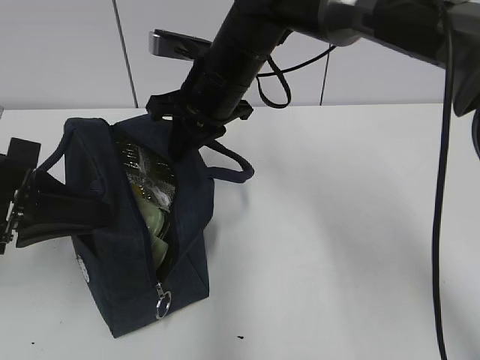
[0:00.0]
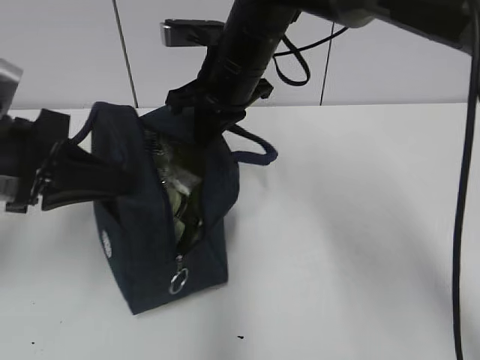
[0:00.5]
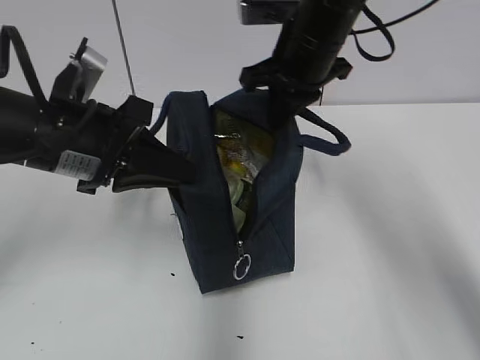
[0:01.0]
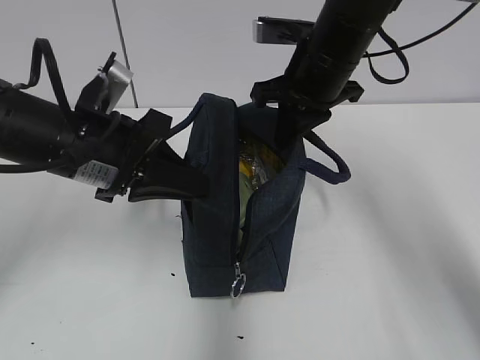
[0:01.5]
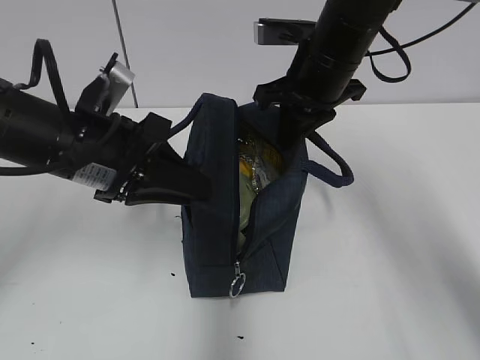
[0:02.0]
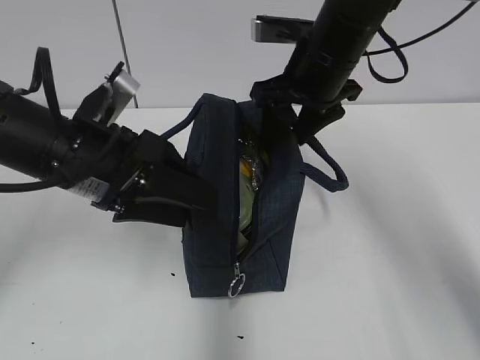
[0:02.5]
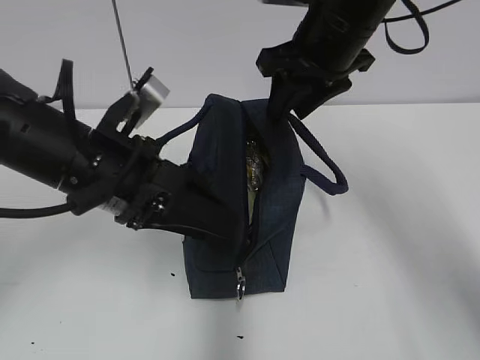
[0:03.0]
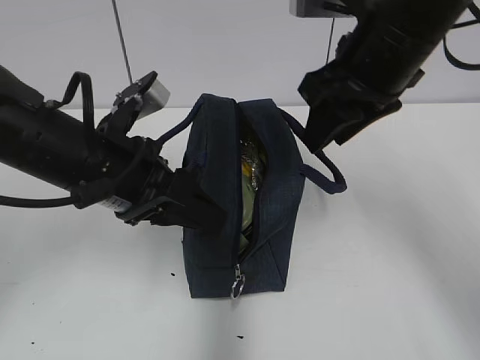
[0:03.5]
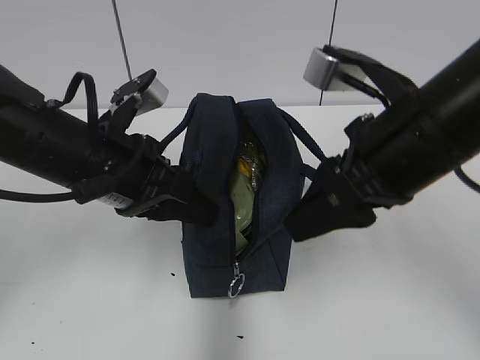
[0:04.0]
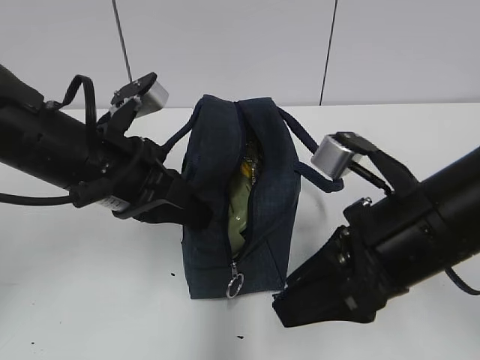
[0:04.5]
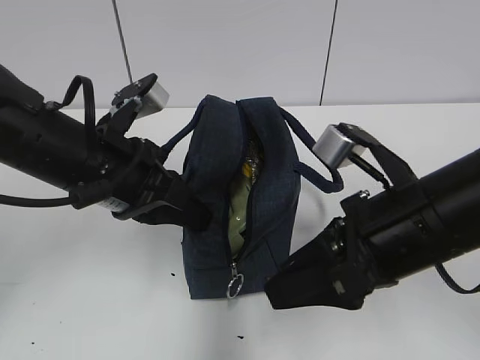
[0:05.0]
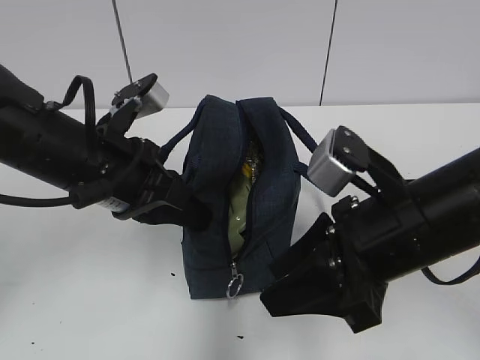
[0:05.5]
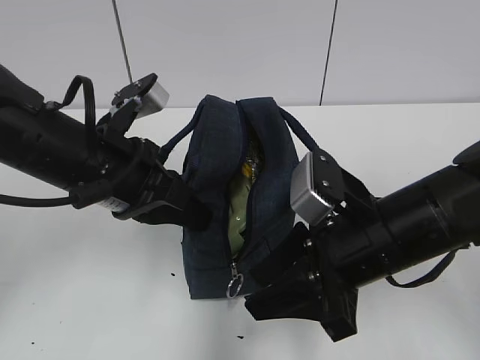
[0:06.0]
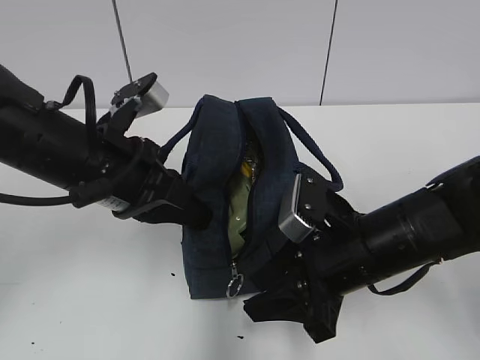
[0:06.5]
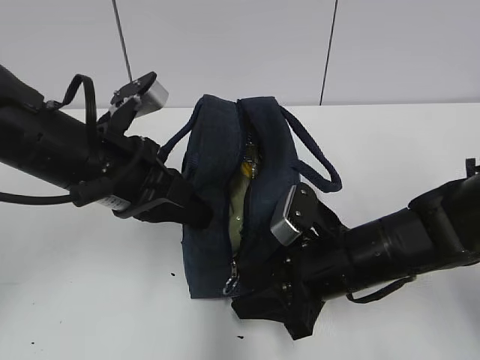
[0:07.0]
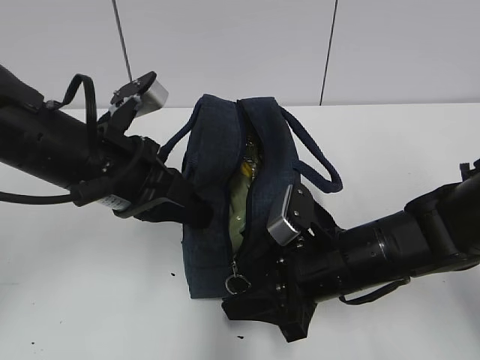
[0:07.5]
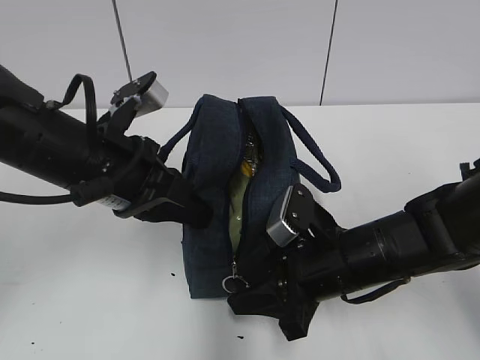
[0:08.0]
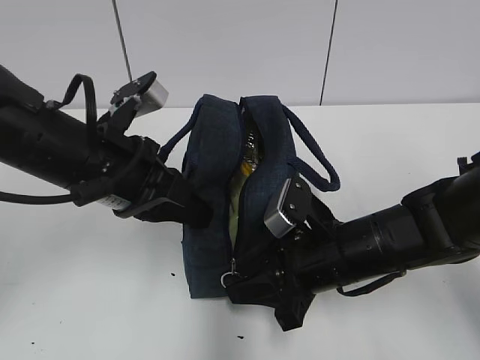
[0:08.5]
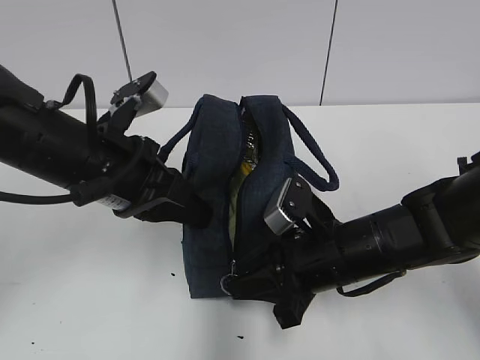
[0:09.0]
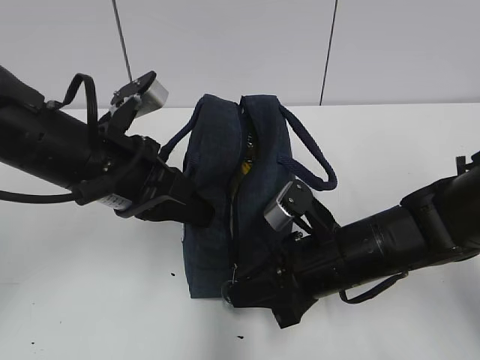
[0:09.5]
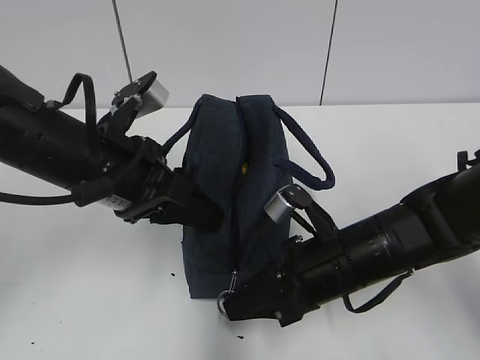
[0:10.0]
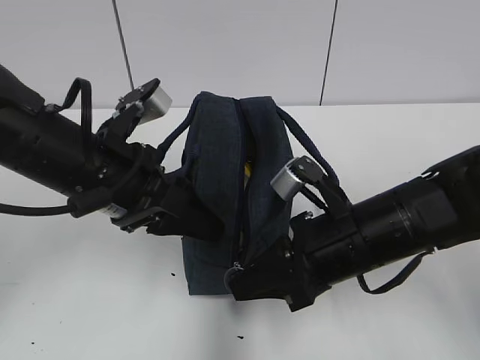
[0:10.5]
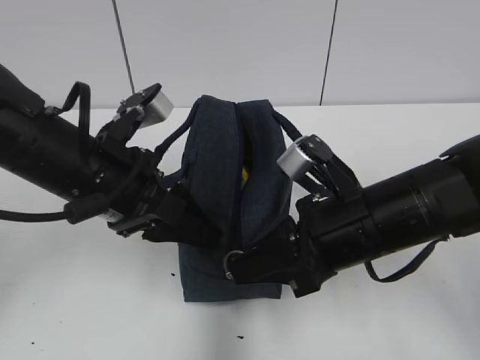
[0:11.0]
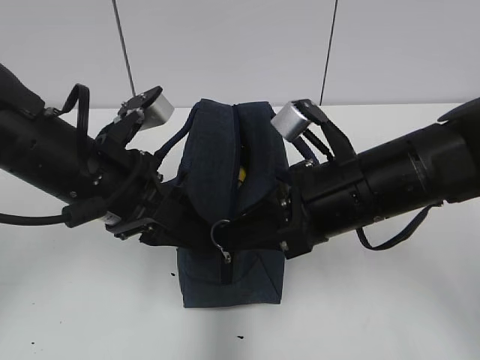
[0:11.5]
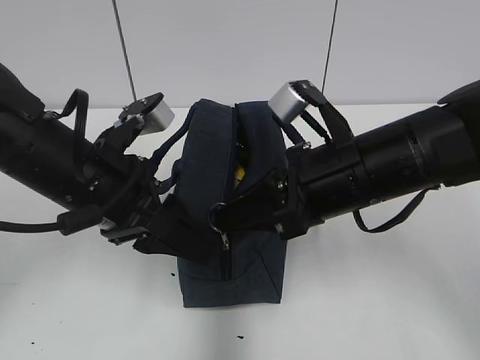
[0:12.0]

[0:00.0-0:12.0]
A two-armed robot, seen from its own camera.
0:00.0 to 0:02.0: The left gripper goes approximately 10 cm to the right and forward, while the right gripper travels to the right by some 10 cm.
0:02.0 to 0:04.0: The right gripper heads backward, covering approximately 15 cm, and opens its fingers, while the left gripper opens, then closes once more.
0:04.0 to 0:06.0: The left gripper closes up. Meanwhile the right gripper heads downward, covering some 10 cm.
0:06.0 to 0:08.0: The right gripper is displaced downward by approximately 5 cm.
0:08.0 to 0:10.0: The left gripper opens its fingers; the right gripper closes its fingers.
0:10.0 to 0:12.0: The right gripper shifts roughly 10 cm upward.

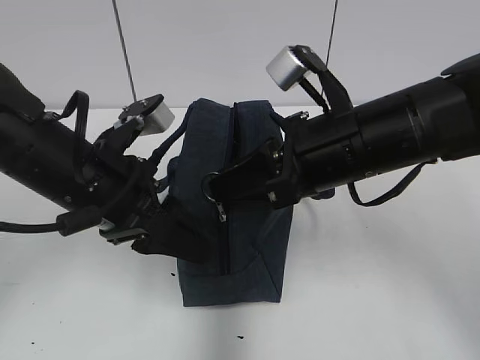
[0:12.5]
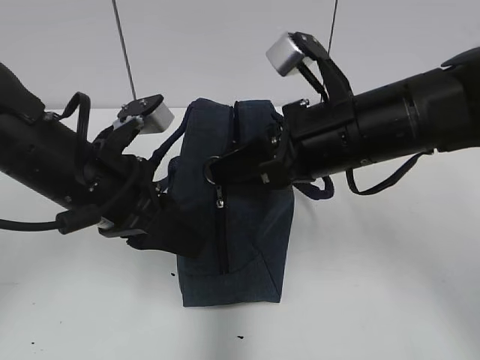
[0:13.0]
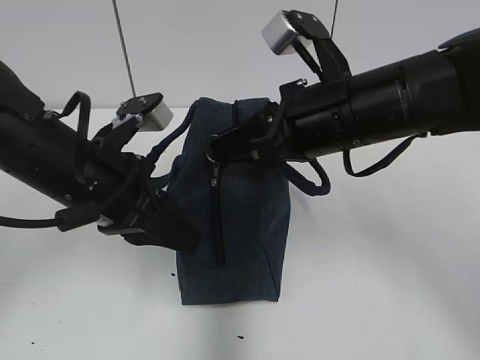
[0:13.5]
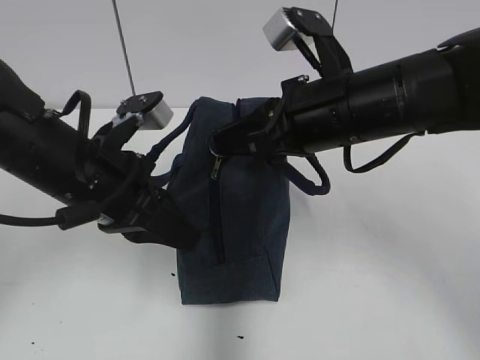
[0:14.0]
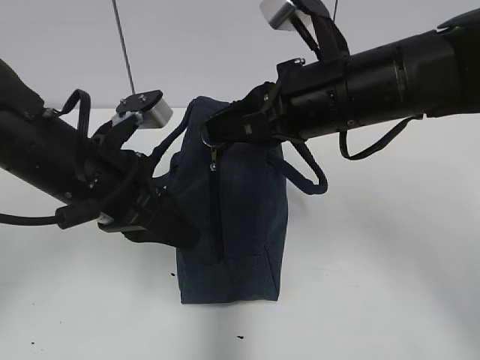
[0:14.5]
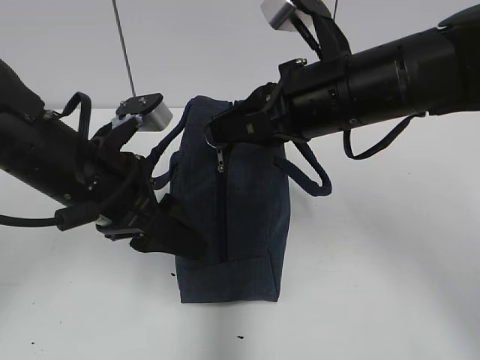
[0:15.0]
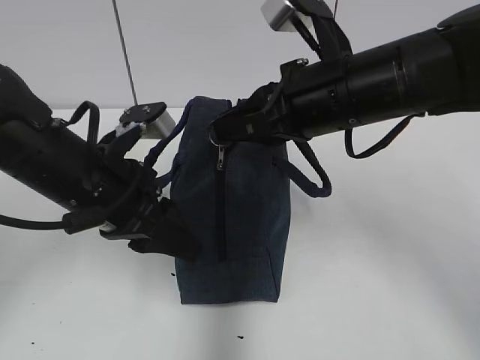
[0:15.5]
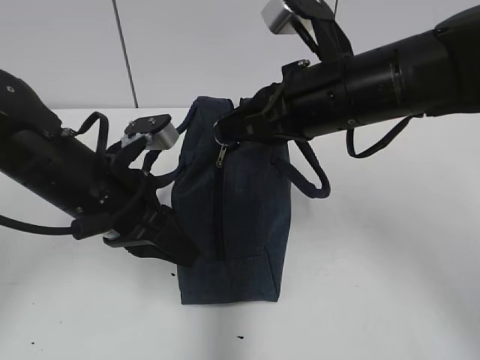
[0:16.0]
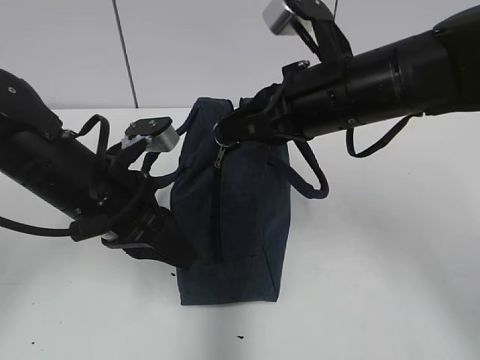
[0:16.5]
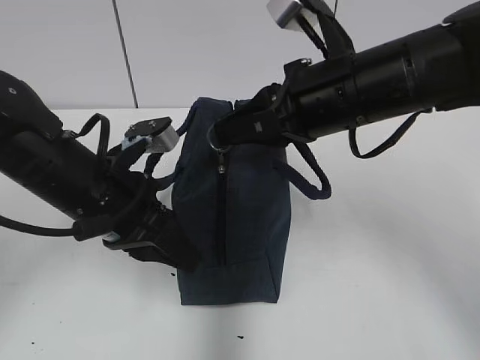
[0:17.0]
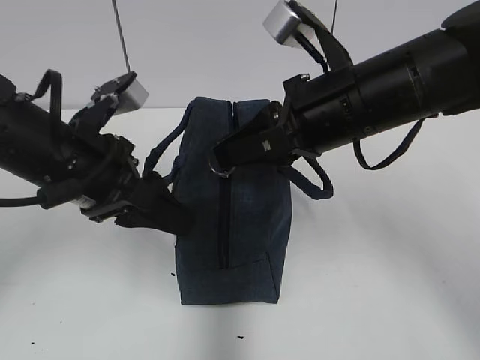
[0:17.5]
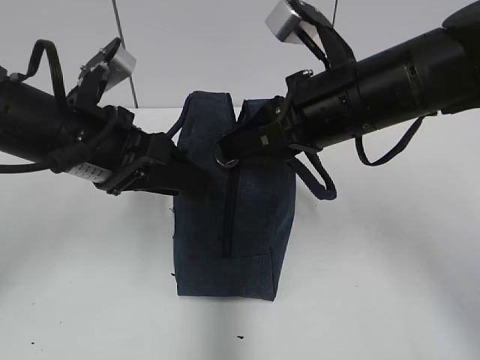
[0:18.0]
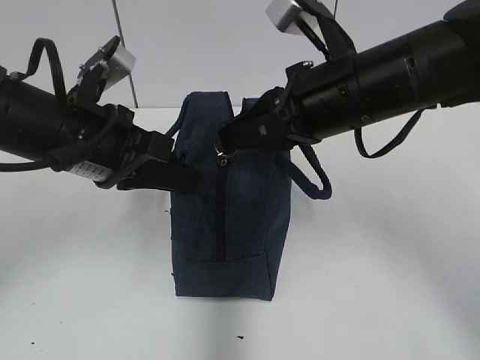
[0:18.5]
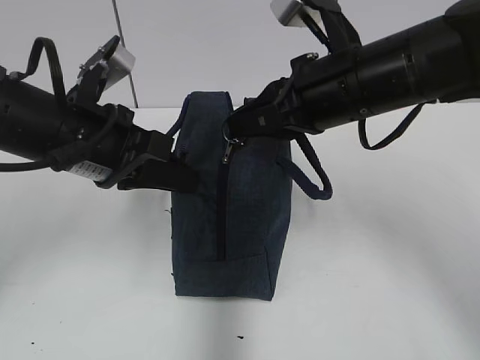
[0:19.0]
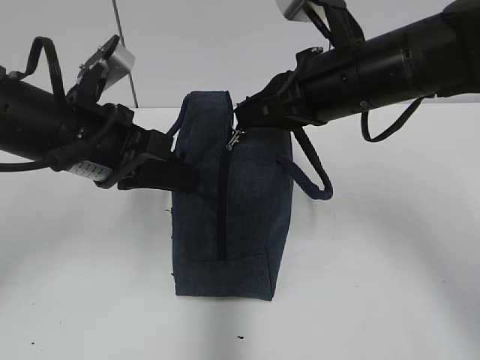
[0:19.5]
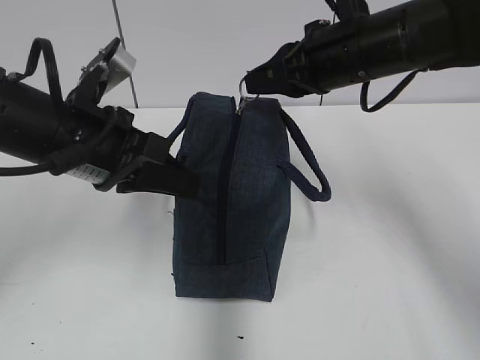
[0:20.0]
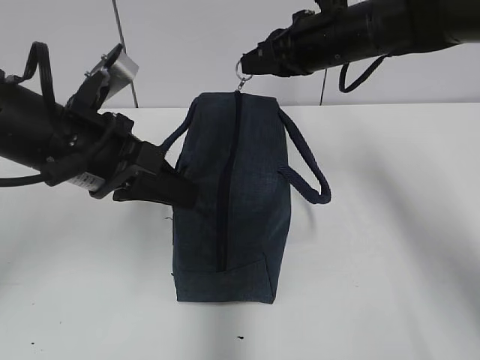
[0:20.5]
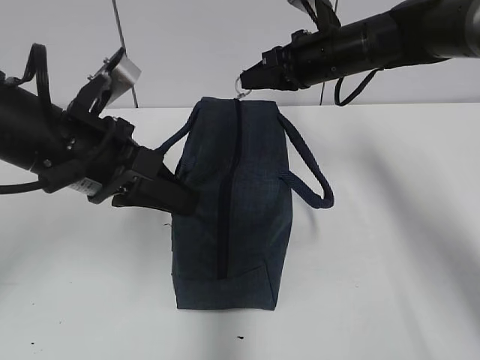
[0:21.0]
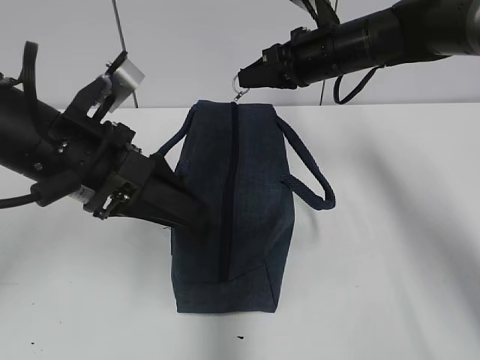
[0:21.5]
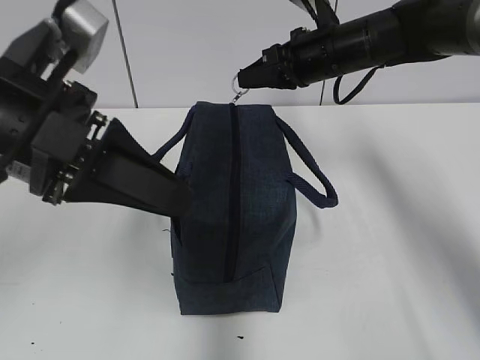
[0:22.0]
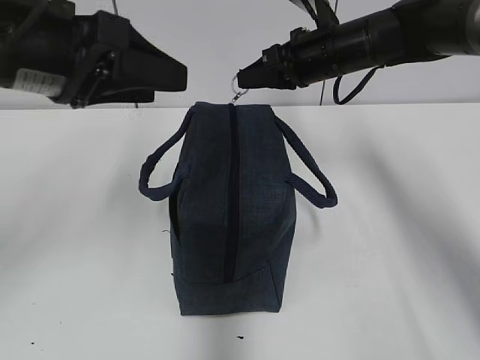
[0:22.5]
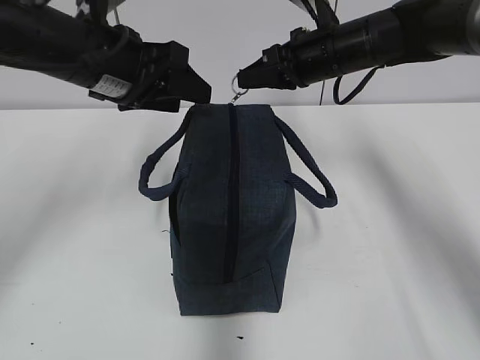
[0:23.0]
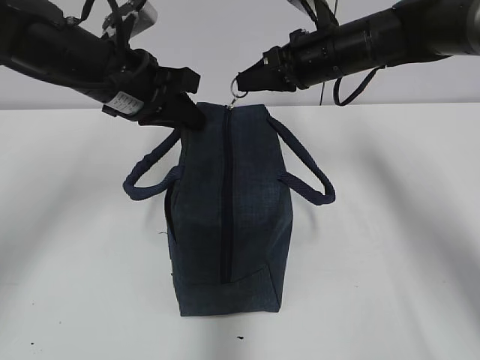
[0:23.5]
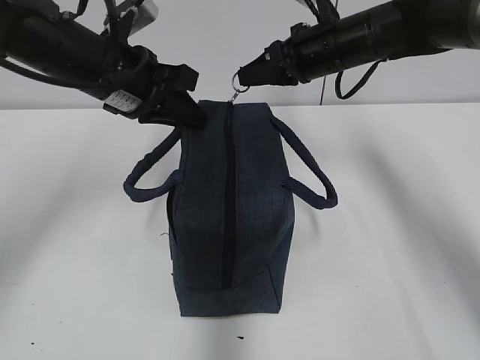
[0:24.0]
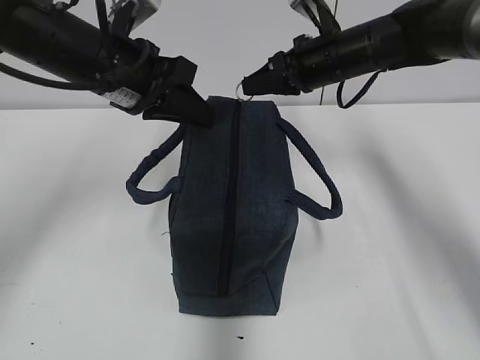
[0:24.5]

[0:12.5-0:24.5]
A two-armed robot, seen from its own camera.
0:12.5 to 0:14.5: The left gripper closes.
0:14.5 to 0:16.5: The left gripper opens and closes again.
0:16.5 to 0:18.5: The left gripper travels upward by approximately 5 cm, and opens and closes again.
0:18.5 to 0:20.5: The right gripper is displaced forward by roughly 15 cm.
0:20.5 to 0:22.5: The left gripper moves upward, some 10 cm, and opens.
0:22.5 to 0:24.5: The left gripper goes roughly 10 cm forward and downward, and closes its fingers.

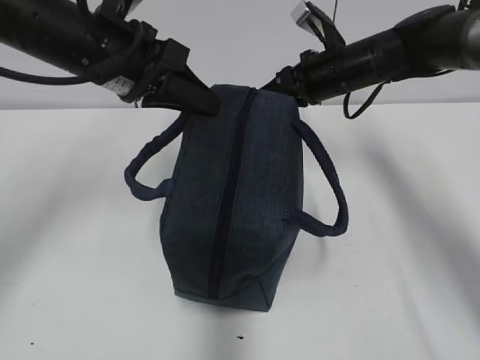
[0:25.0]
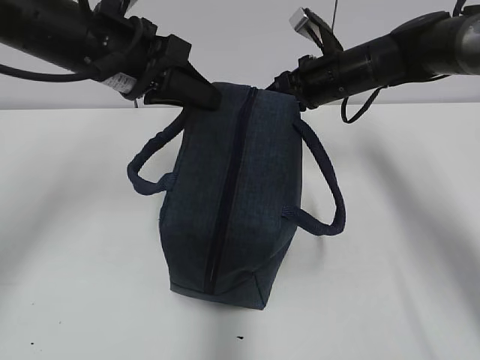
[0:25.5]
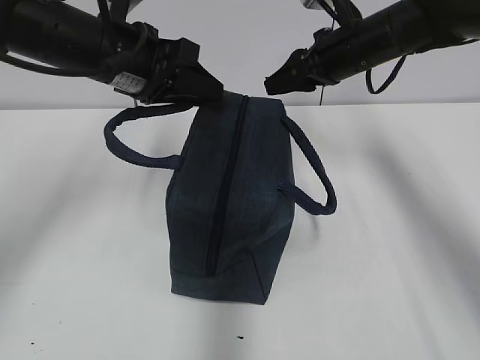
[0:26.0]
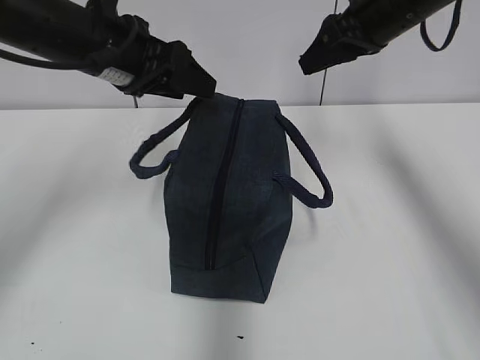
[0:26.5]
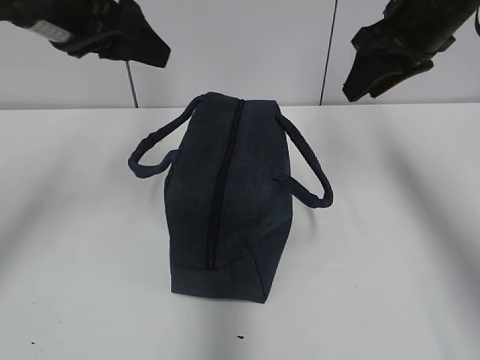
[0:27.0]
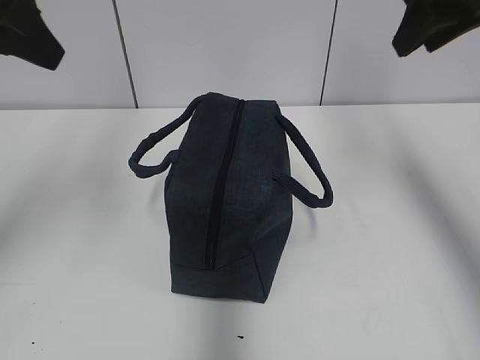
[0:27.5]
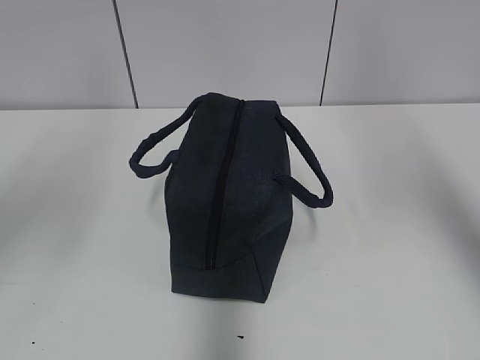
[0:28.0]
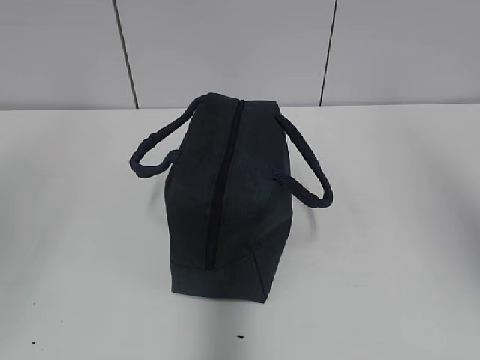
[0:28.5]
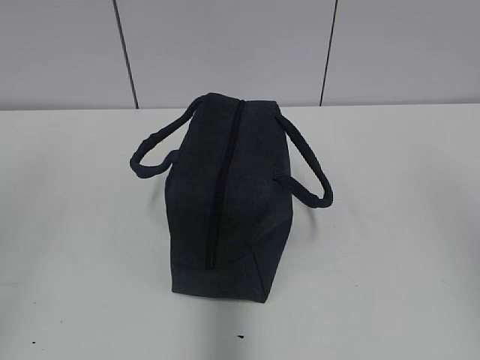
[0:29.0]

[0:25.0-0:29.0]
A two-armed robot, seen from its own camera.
0:25.0 to 0:27.0: The left gripper shifts about 5 cm upward, and opens its fingers. Meanwhile the right gripper heads upward and backward, covering about 15 cm, and opens.
0:27.0 to 0:29.0: The right gripper is displaced backward by approximately 35 cm, while the left gripper heads backward and to the left, covering some 30 cm.
